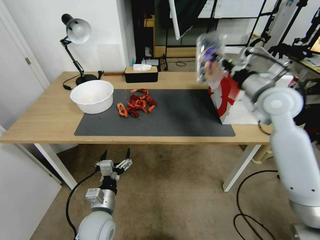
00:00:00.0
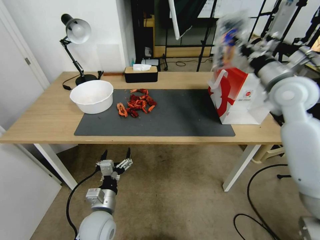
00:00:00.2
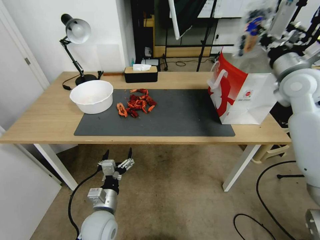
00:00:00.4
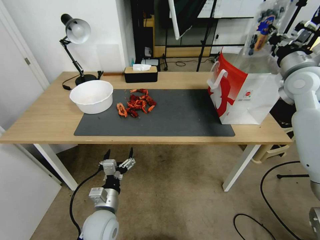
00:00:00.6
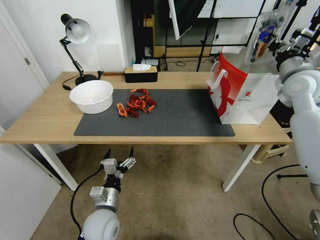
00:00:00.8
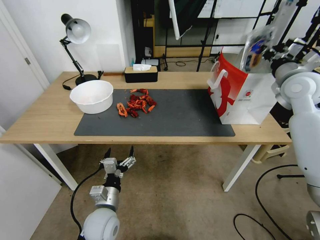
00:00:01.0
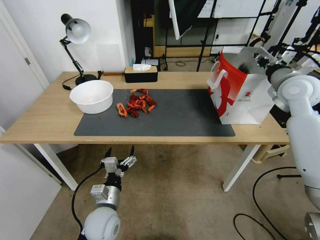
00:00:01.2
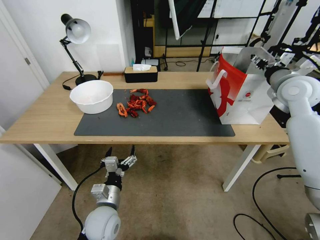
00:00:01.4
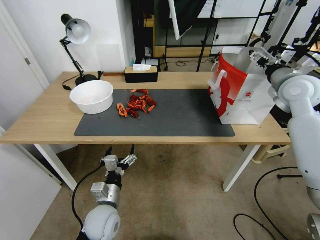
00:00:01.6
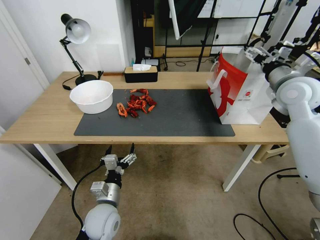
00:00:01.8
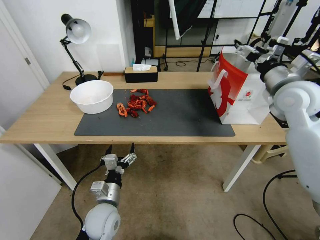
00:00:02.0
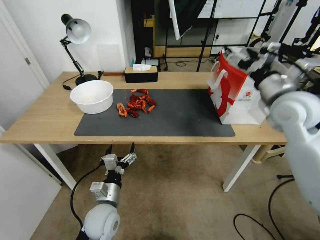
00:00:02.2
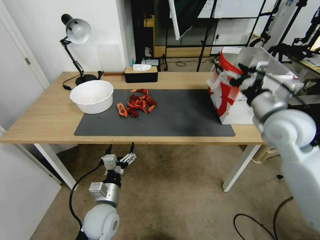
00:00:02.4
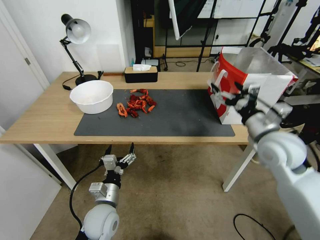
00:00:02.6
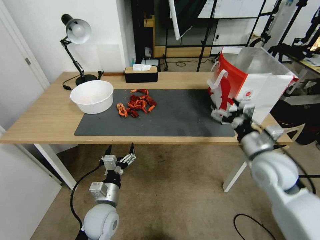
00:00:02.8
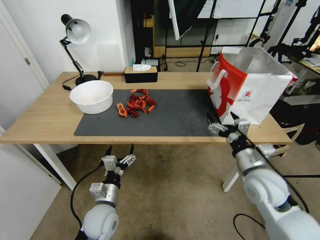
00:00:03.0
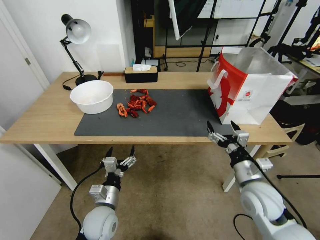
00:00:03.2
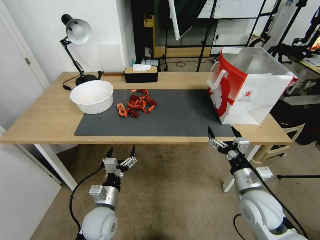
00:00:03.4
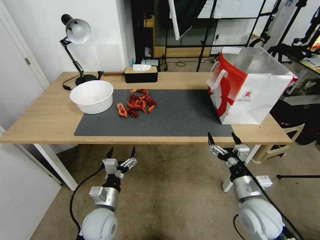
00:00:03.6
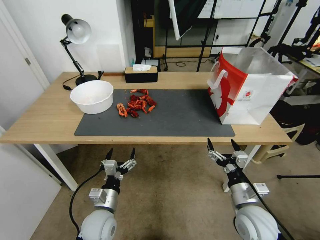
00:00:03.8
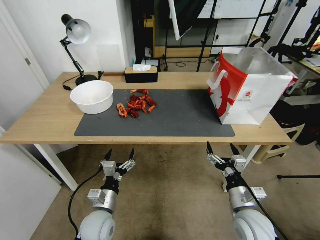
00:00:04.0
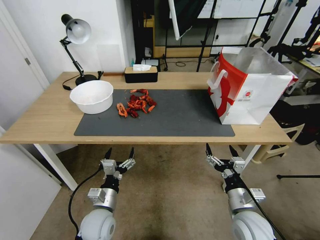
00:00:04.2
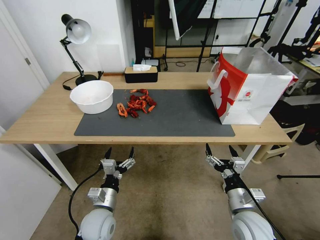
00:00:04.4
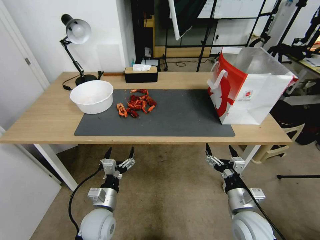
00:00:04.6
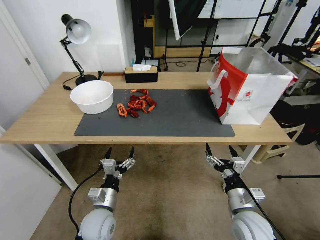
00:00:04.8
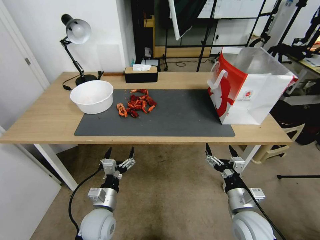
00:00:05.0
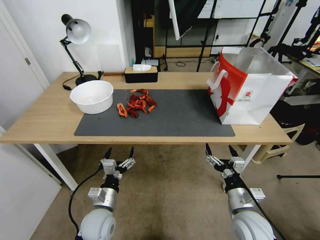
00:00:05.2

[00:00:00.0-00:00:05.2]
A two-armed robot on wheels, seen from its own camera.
Task of the whole recording: Close the takeout container lid, then place the container into the takeout bag.
00:00:00.0 to 00:00:01.8: The right gripper travels to the right by about 5 cm, and opens up.
00:00:01.8 to 00:00:03.4: The right gripper goes some 35 cm downward and backward.
00:00:03.4 to 00:00:05.2: The right gripper shifts by roughly 5 cm.
